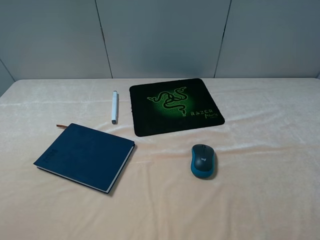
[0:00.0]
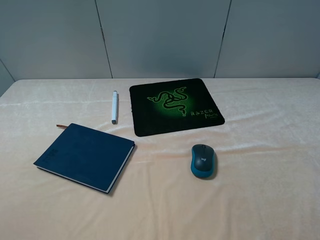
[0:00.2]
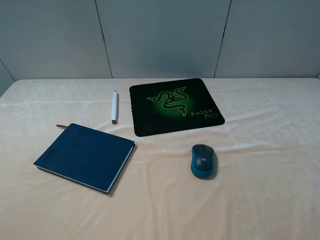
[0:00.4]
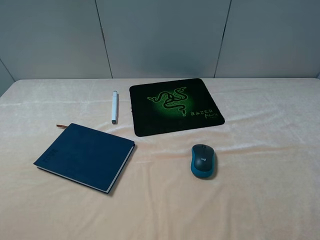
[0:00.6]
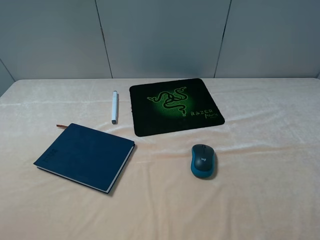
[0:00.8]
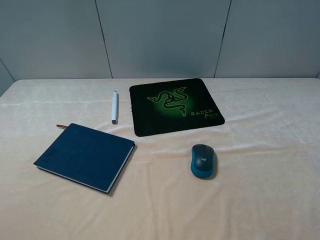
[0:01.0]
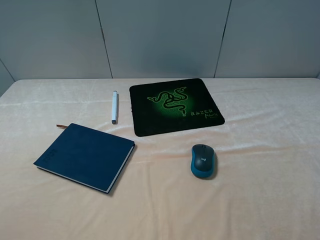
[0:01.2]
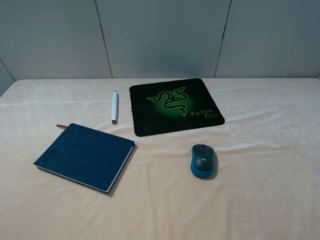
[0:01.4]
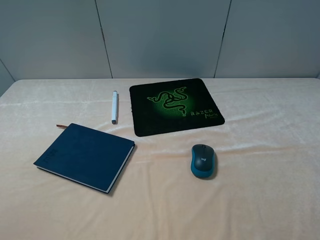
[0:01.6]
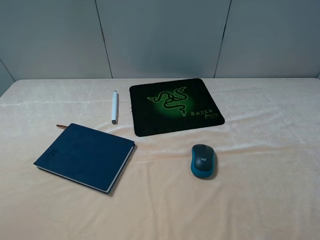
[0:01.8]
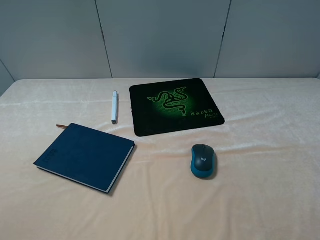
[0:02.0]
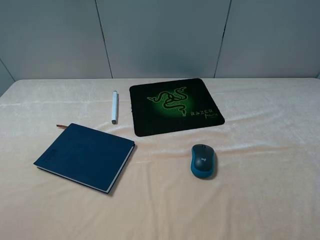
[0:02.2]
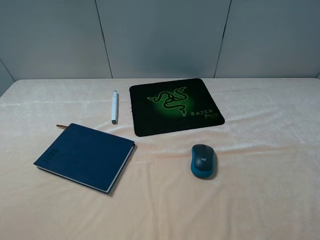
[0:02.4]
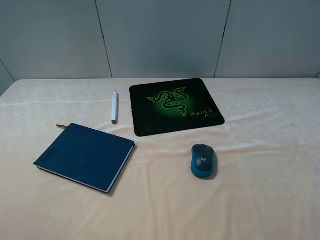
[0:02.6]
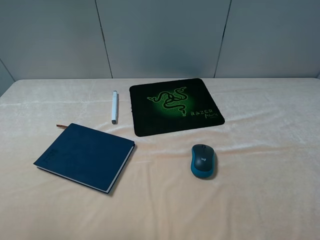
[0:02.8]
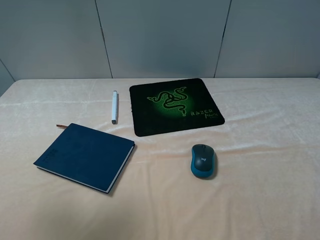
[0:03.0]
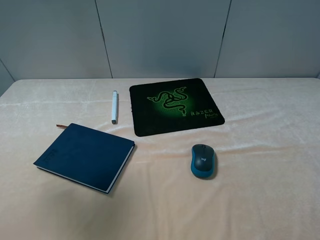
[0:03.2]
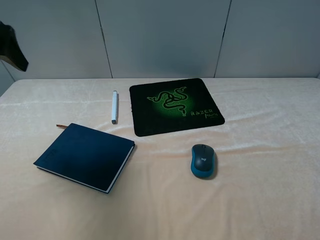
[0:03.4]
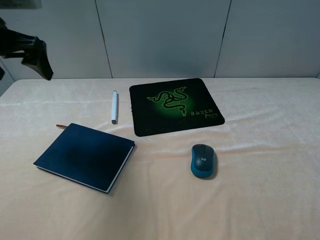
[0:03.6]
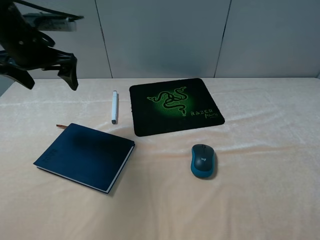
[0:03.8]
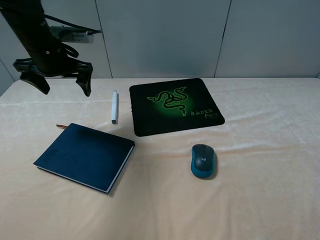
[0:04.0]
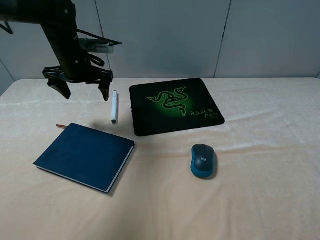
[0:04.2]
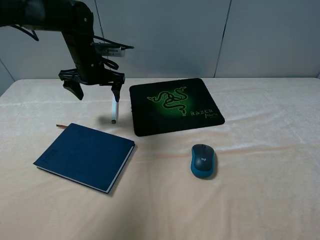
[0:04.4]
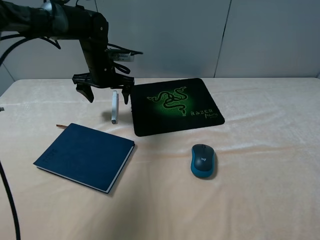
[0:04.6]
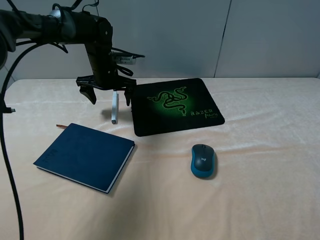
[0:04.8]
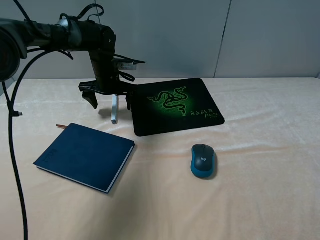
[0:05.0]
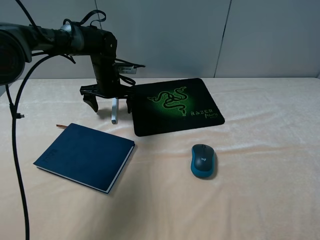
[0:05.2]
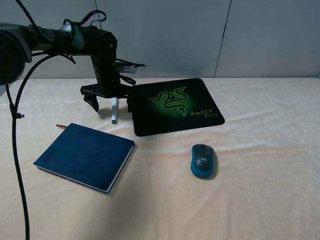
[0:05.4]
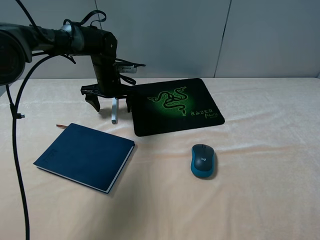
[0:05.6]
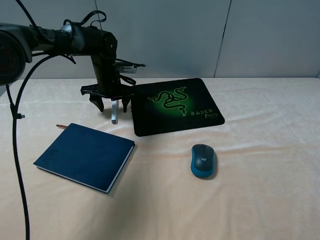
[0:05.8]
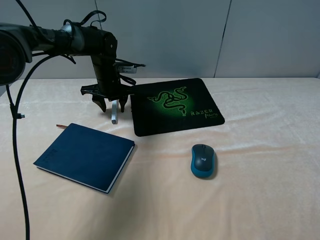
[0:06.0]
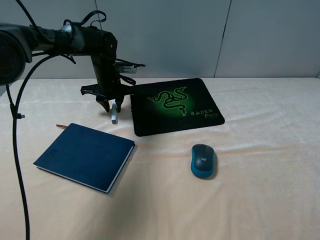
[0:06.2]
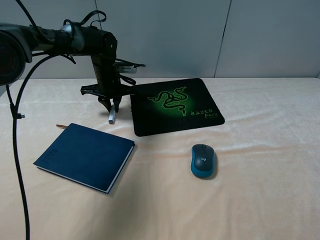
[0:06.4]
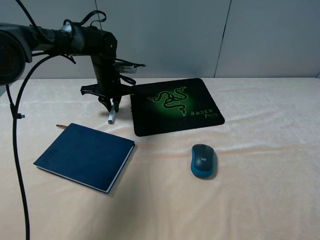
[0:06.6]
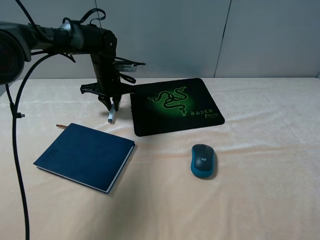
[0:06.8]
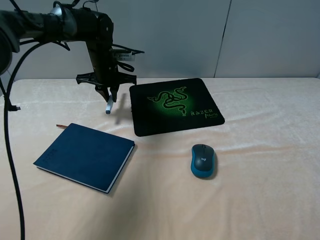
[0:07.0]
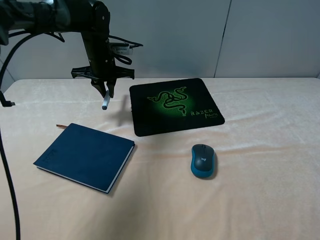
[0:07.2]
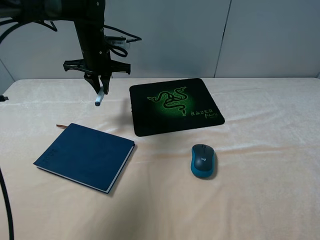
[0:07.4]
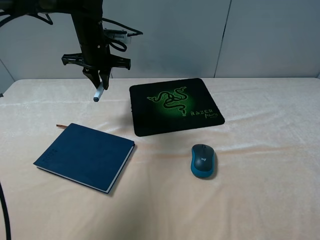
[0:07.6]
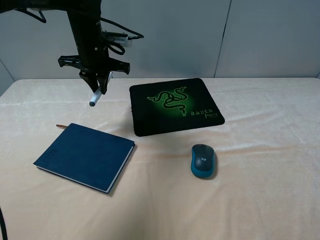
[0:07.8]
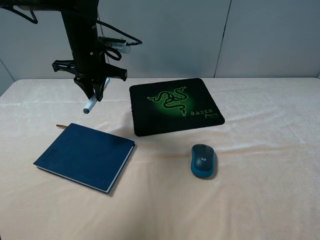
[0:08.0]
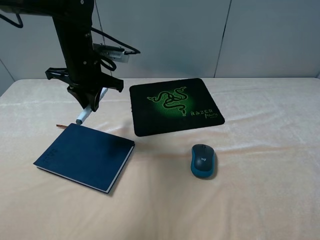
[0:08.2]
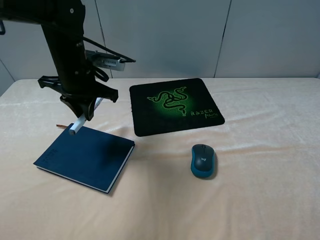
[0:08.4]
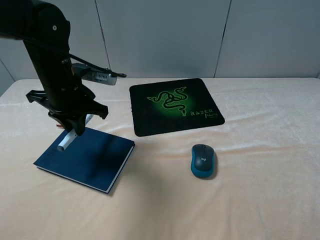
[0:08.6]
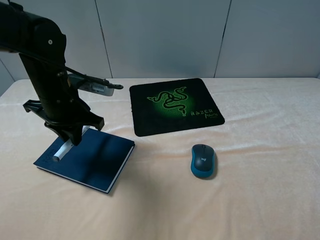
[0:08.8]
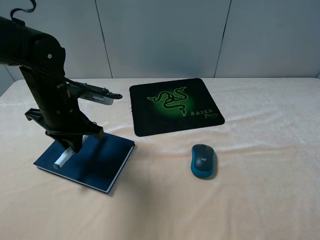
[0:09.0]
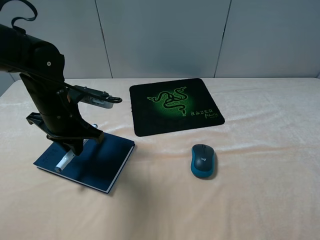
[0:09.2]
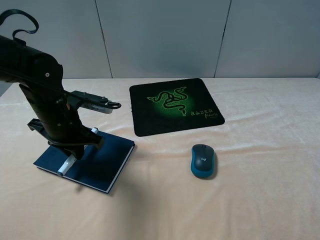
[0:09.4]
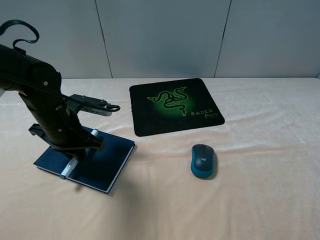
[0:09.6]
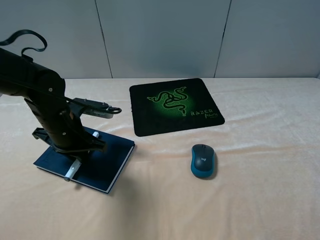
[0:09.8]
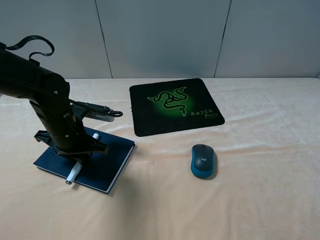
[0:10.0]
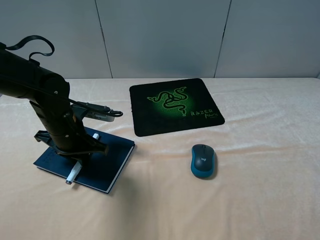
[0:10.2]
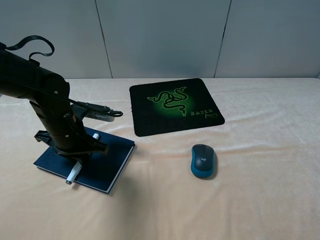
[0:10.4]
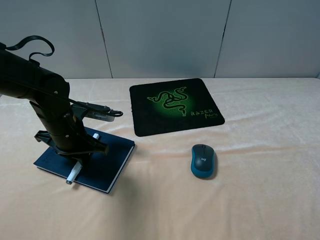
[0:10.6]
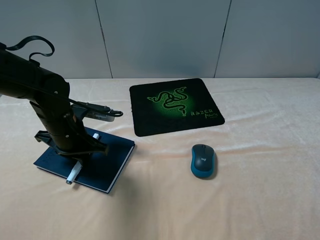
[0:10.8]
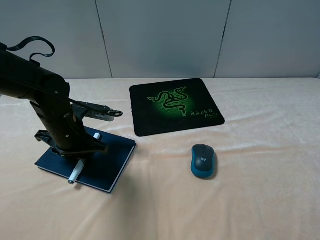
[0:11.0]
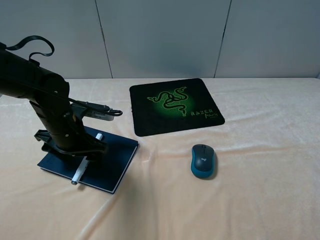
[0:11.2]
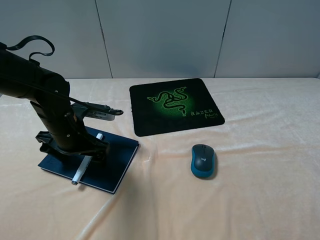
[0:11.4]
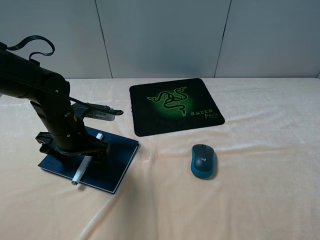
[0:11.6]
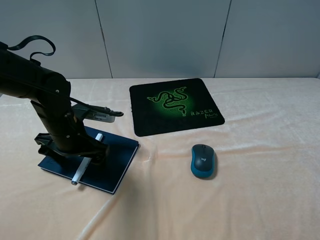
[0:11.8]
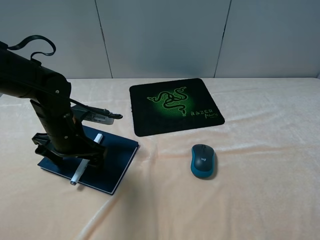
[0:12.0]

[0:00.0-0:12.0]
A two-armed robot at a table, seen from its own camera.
Step, 0:00.0 to 0:06.6: Grasp the marker with the left gripper.
Step, 0:06.8 to 0:12.0: Place the marker on the notebook with the left gripper.
0:00.0 to 0:01.6: Both grippers stay put.
0:01.6 to 0:03.0: The left gripper moves forward and upward, roughly 20 cm.
0:03.0 to 0:04.4: The left gripper heads forward, downward and to the right, covering about 35 cm.
0:04.4 to 0:06.0: The left gripper travels downward by about 5 cm, and closes up.
0:06.0 to 0:07.6: The left gripper goes roughly 10 cm upward, and closes its fingers.
0:07.6 to 0:09.0: The left gripper moves backward, roughly 15 cm.
0:09.0 to 0:10.4: The left gripper heads downward, covering roughly 5 cm.
0:10.4 to 0:12.0: The left gripper opens.

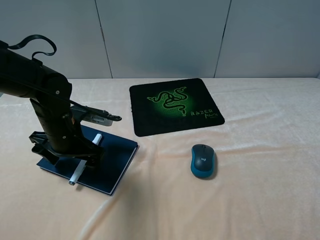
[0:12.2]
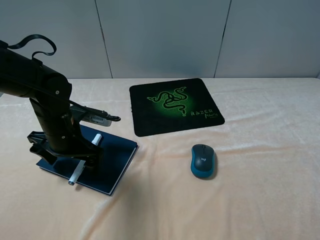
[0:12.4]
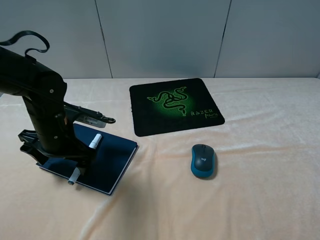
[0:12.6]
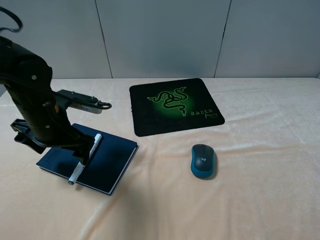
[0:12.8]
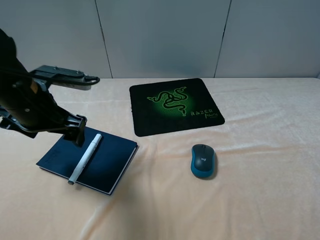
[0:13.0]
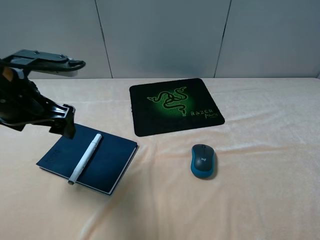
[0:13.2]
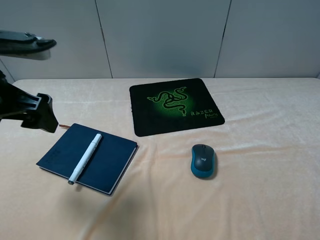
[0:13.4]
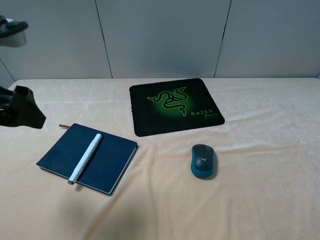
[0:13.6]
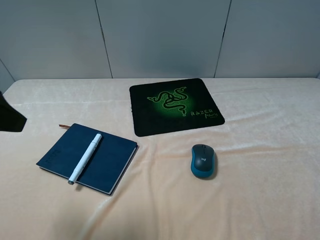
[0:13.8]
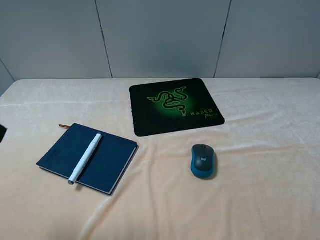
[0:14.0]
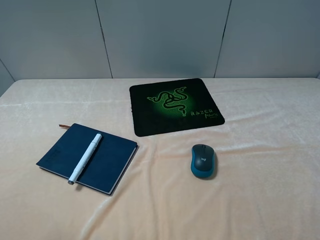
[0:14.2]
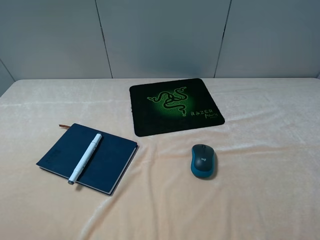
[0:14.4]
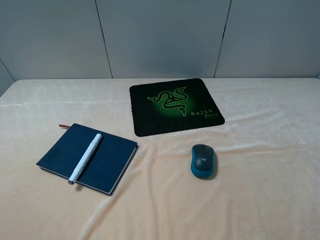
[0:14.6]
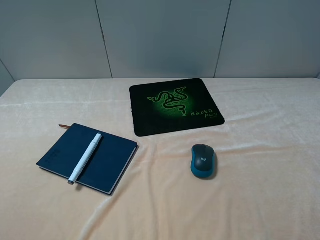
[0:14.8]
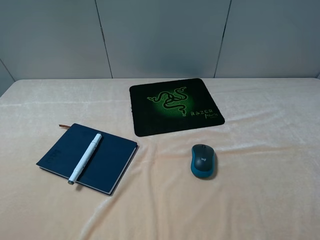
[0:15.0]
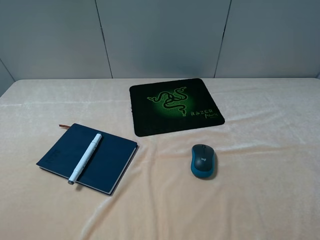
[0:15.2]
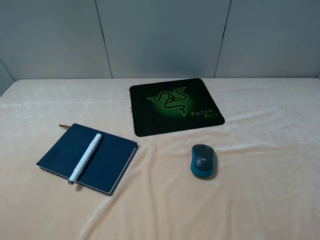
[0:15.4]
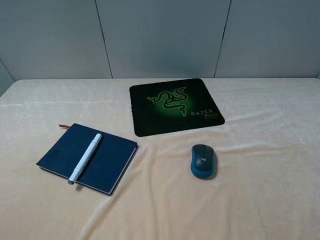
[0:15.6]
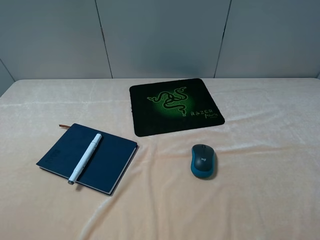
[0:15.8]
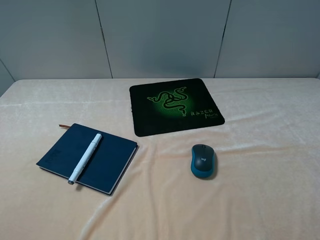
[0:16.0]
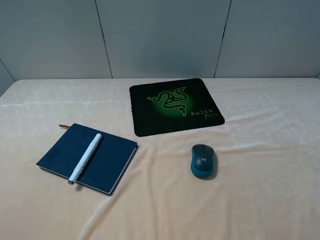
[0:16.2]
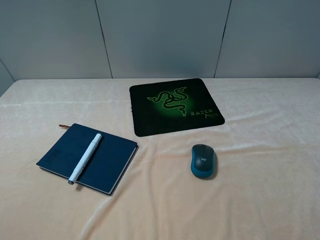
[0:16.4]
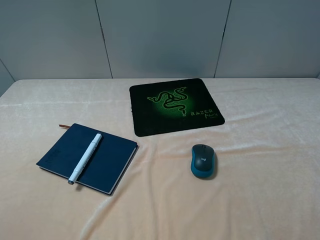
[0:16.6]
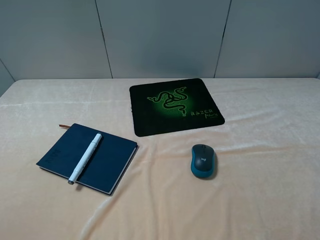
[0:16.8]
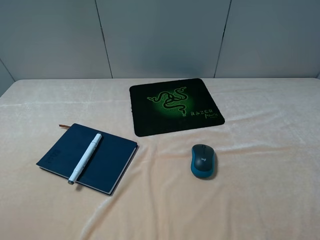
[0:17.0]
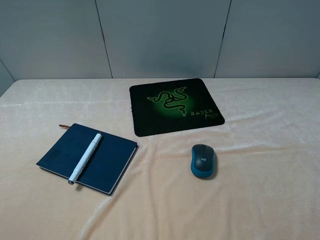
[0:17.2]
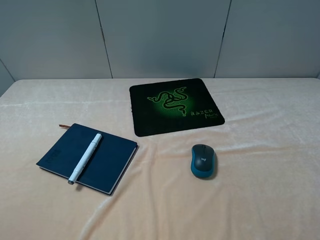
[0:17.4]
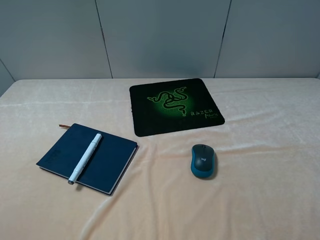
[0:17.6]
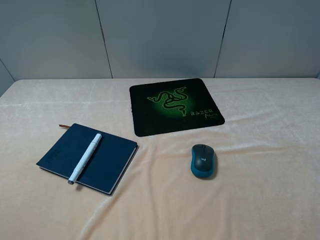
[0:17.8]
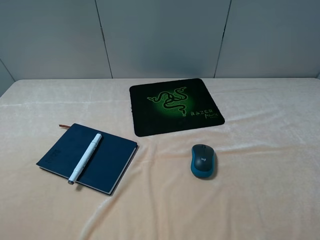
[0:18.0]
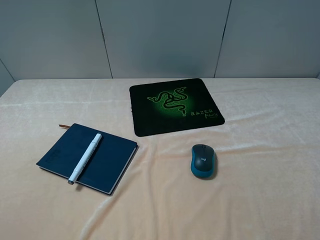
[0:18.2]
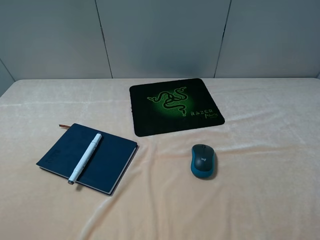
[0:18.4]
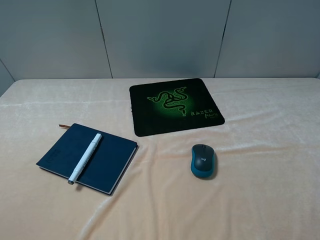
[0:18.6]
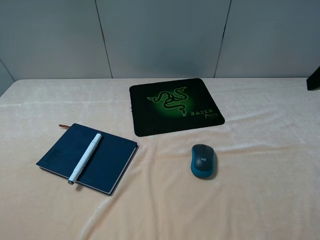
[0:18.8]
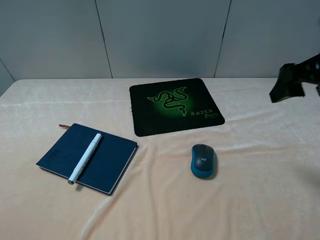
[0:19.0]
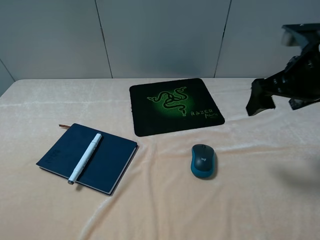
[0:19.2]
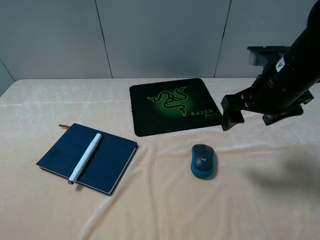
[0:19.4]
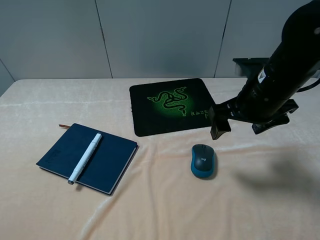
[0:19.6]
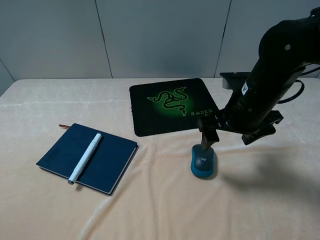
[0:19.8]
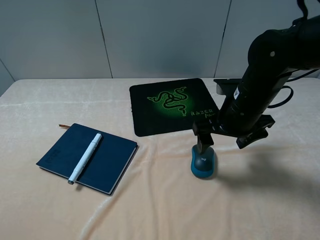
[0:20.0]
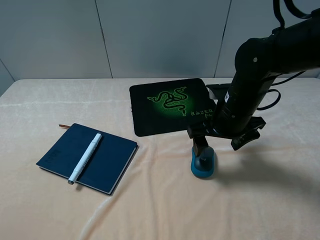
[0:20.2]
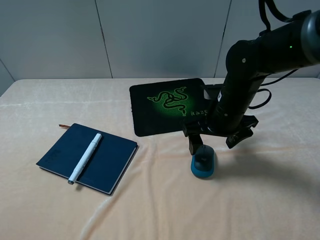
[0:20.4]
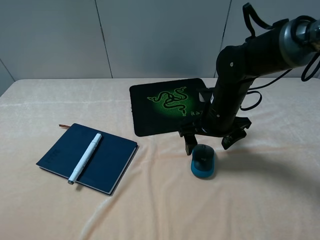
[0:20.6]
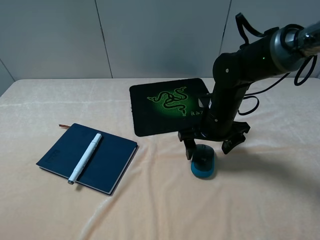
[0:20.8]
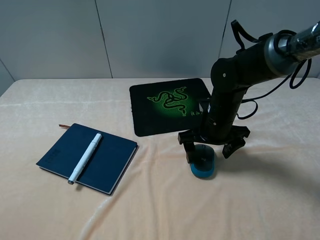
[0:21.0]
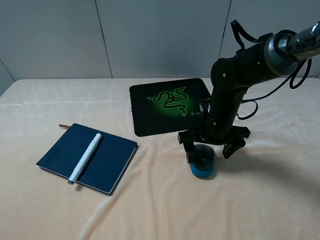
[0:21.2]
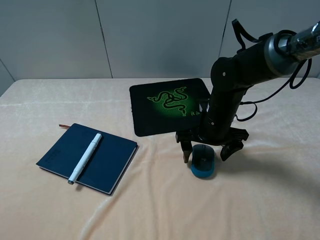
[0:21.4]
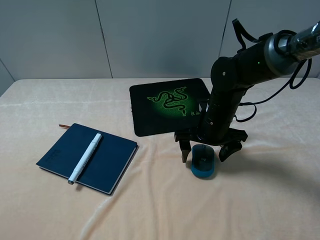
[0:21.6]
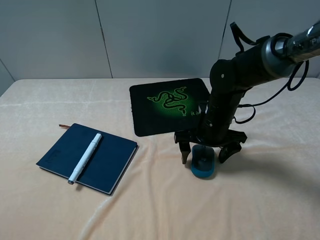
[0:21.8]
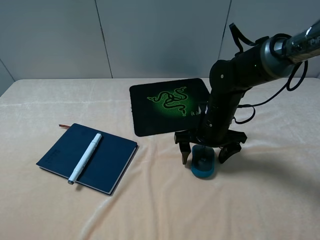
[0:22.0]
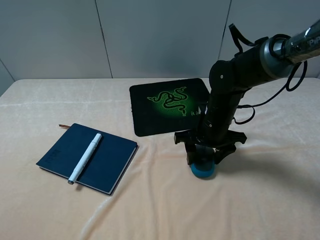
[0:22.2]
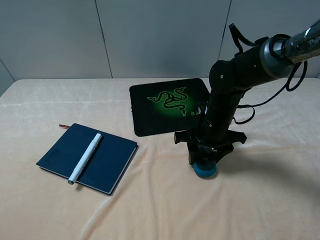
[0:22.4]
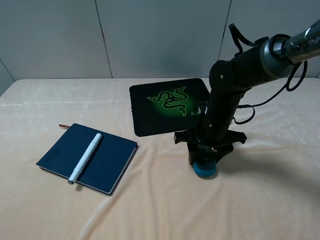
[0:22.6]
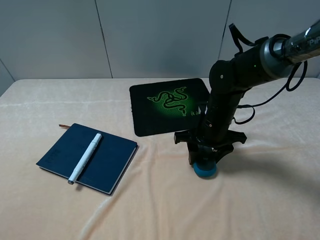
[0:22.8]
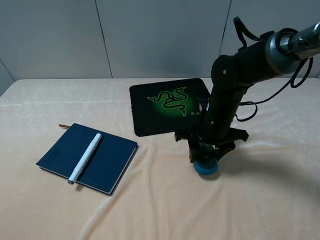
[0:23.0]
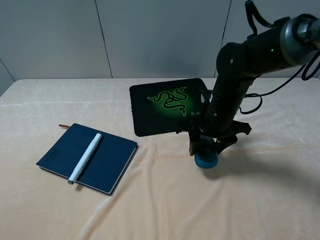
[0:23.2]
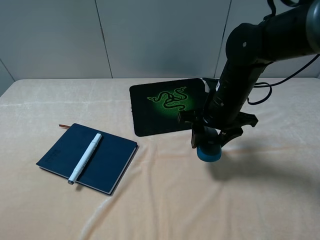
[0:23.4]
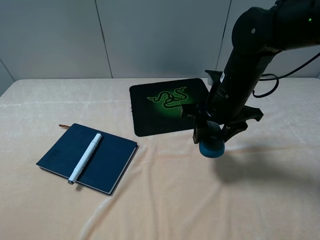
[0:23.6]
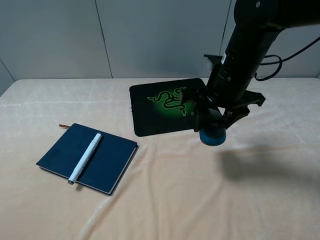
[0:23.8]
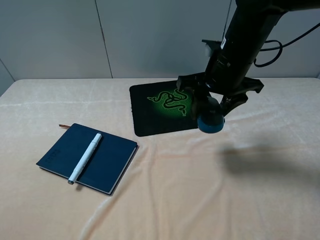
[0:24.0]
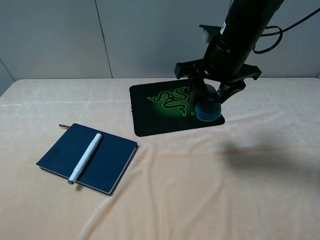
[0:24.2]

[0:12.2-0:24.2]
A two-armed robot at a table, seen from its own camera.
Step, 0:12.2 to 0:22.4: Grasp the mouse with the right gripper.
0:12.2 to 0:13.8: The left gripper shifts about 25 cm upward and backward.
0:13.8 to 0:15.2: The left gripper moves backward and to the left, about 10 cm.
0:18.2 to 0:19.8: The right gripper travels forward, to the left and downward by some 30 cm.
0:19.8 to 0:21.2: The right gripper moves downward, some 5 cm.
0:21.2 to 0:22.6: The right gripper closes.
0:22.6 to 0:24.2: The right gripper heads upward, covering some 15 cm.
